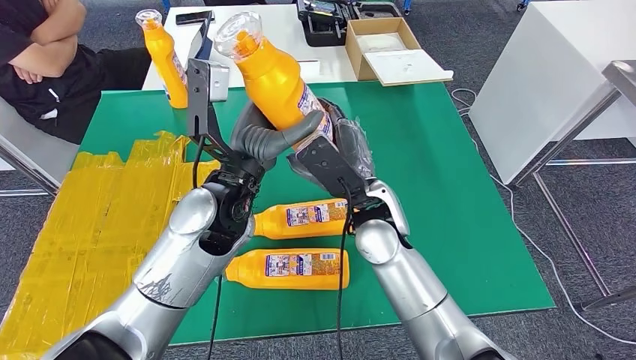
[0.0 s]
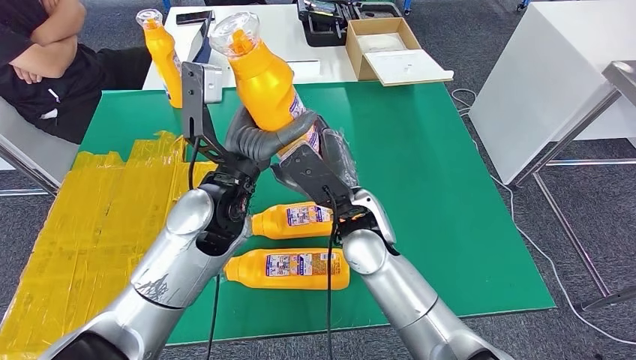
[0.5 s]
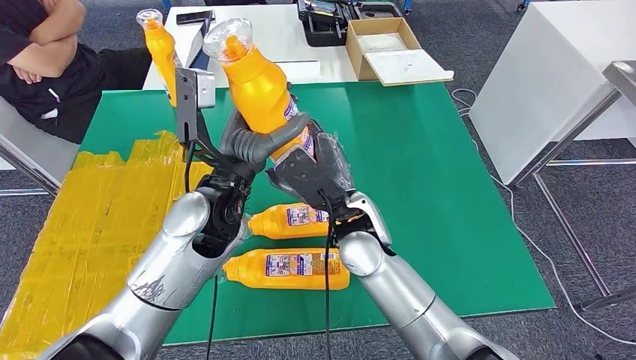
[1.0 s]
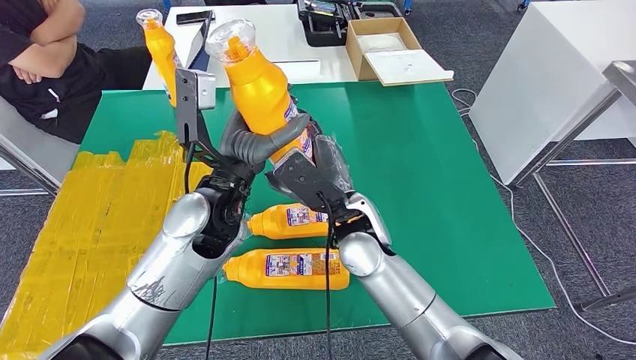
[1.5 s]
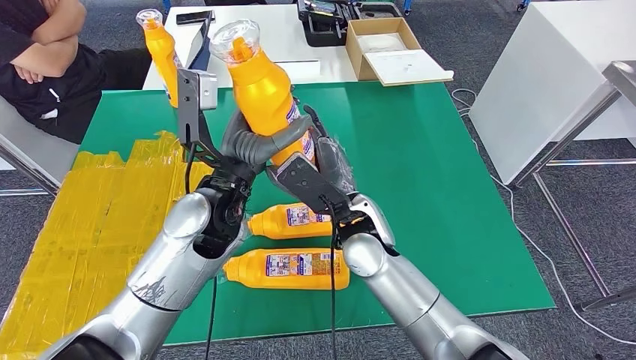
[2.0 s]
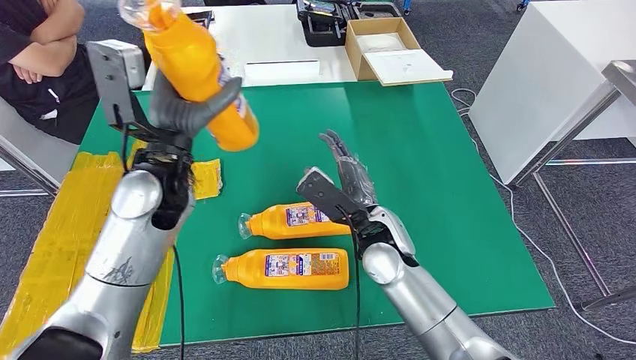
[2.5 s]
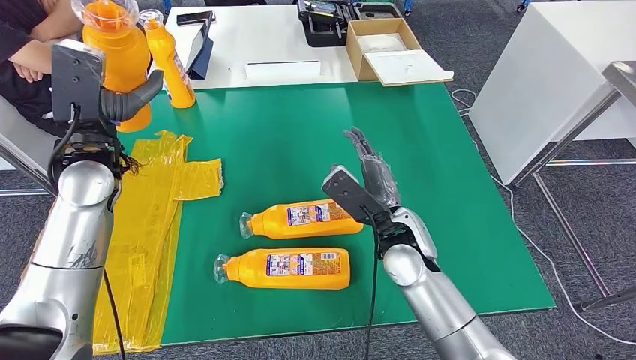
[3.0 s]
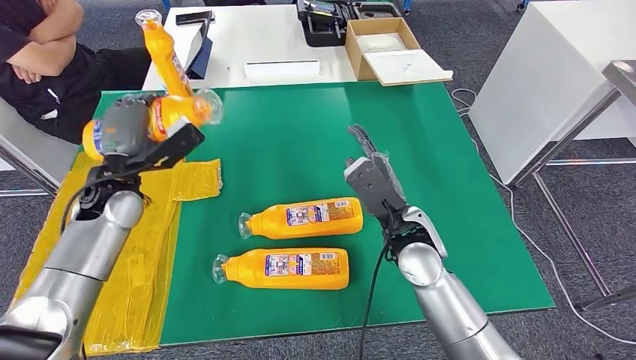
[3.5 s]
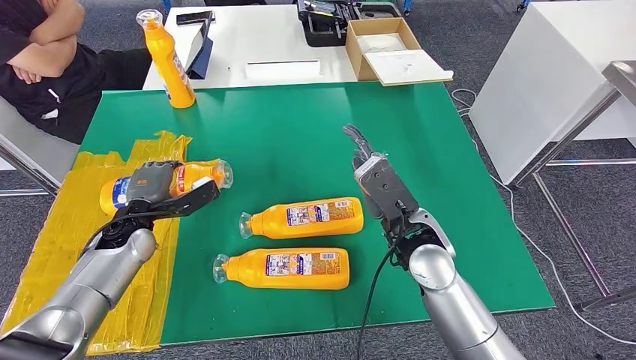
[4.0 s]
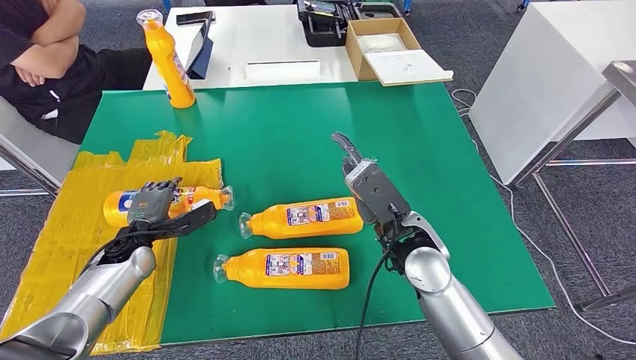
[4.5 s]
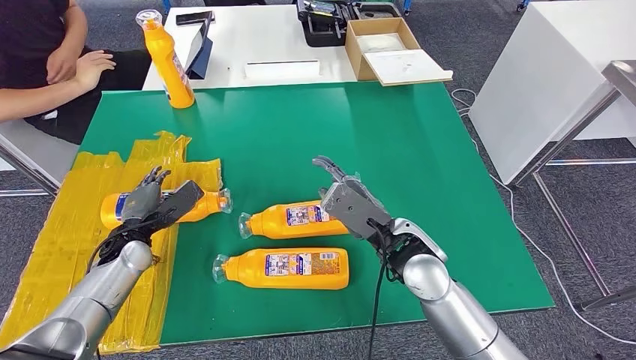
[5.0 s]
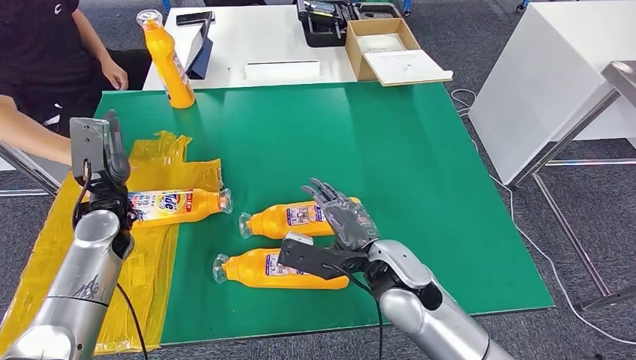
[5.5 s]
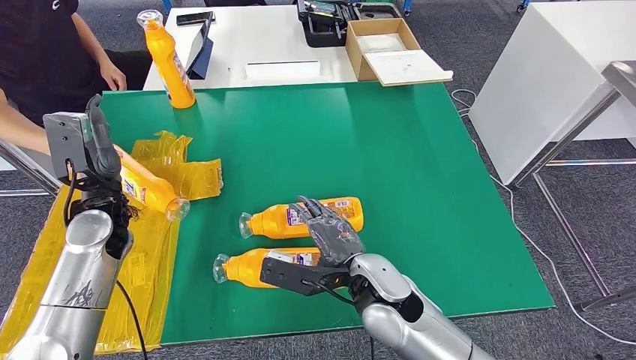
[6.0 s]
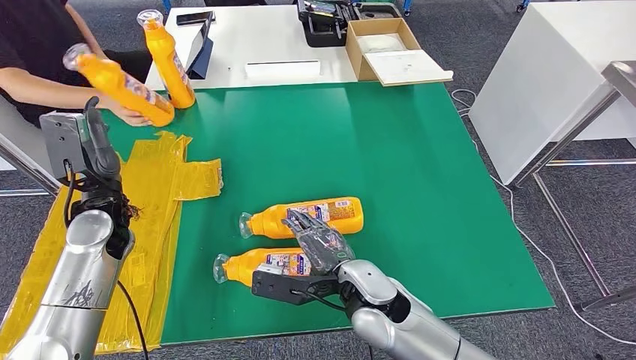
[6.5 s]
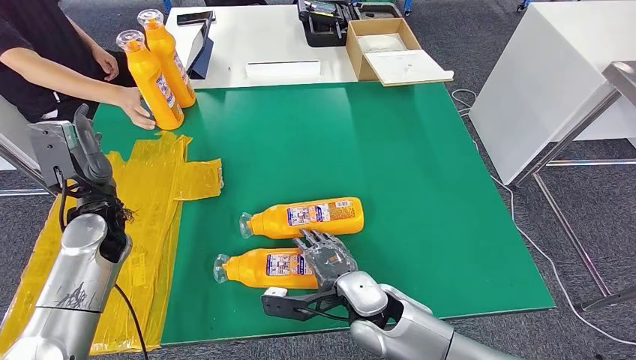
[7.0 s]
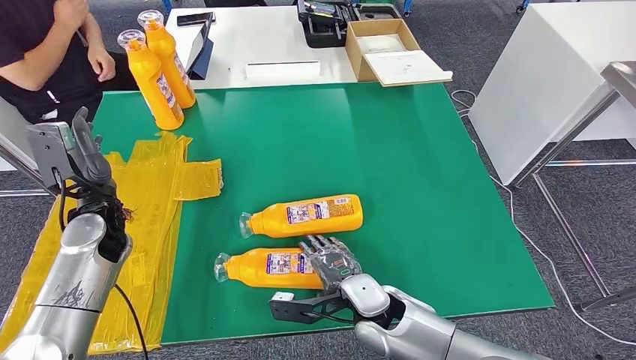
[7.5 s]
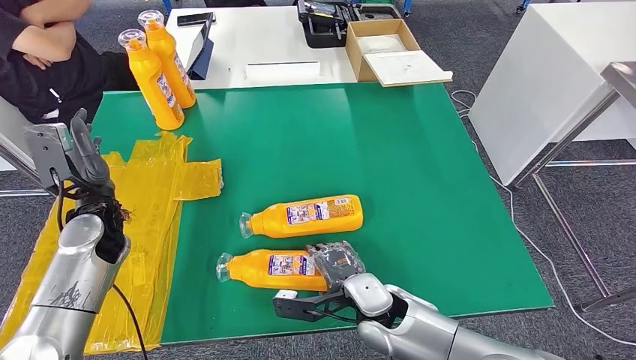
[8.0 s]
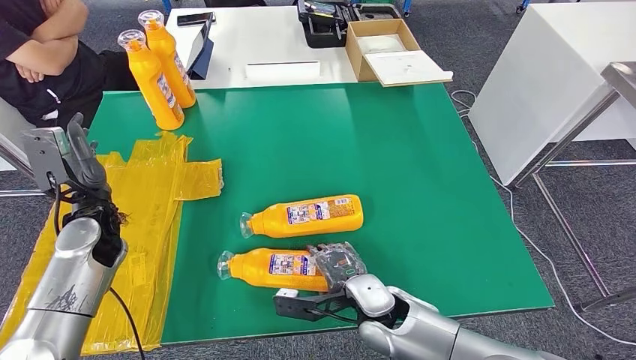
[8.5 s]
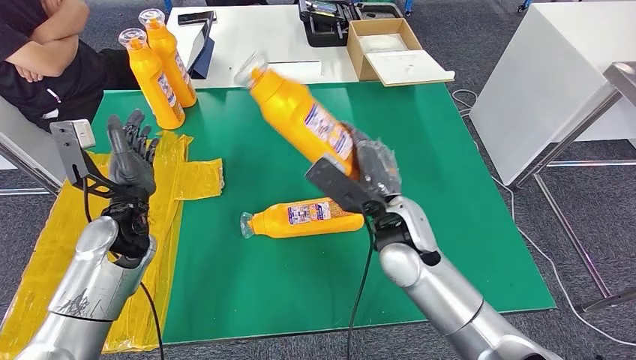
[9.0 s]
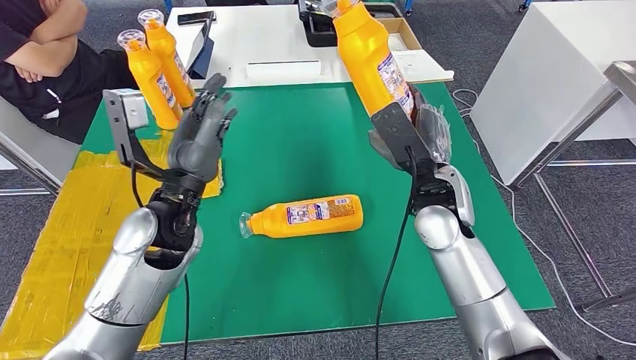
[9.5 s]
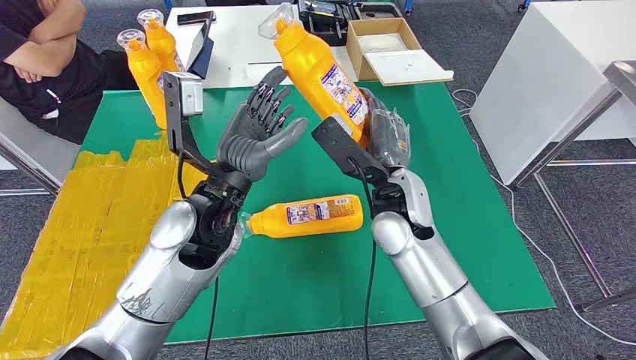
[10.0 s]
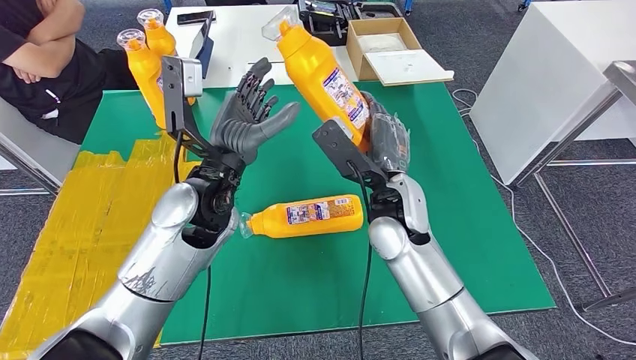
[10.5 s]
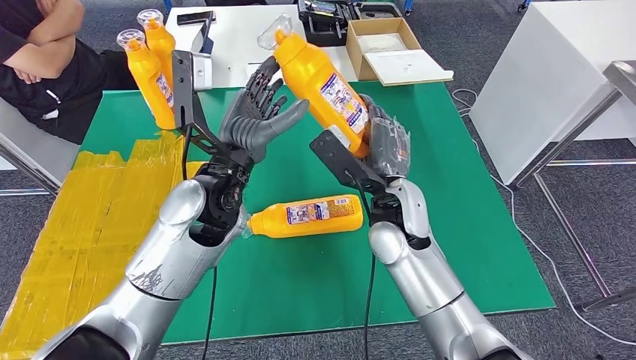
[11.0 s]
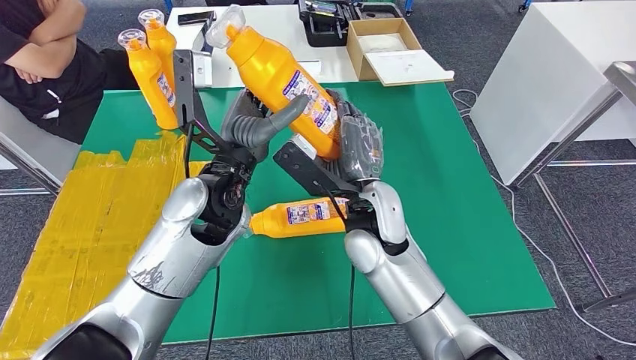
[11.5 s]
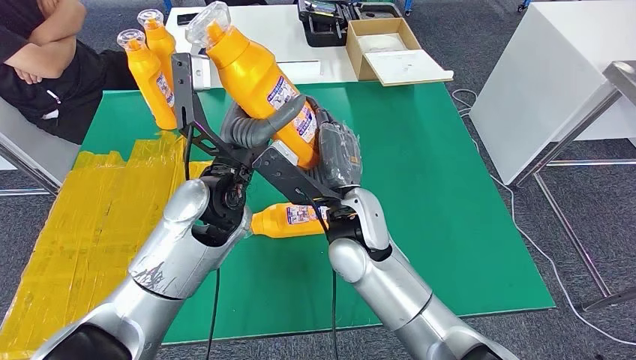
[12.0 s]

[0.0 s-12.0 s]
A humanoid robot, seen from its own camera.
Step, 0.0 to 4.5 s: Flip the bottle to face forward.
Step, 5.5 to 9.0 s: Pick up the bottle from the table.
0.0 to 2.0 s: The hands stay close to where they were, moving slightly.
6.0 to 8.0 s: The right hand travels downward by about 10 cm.

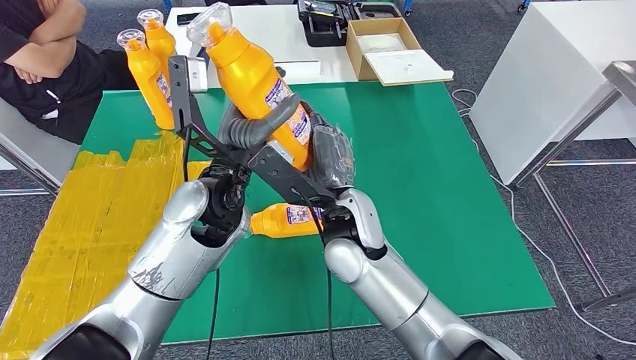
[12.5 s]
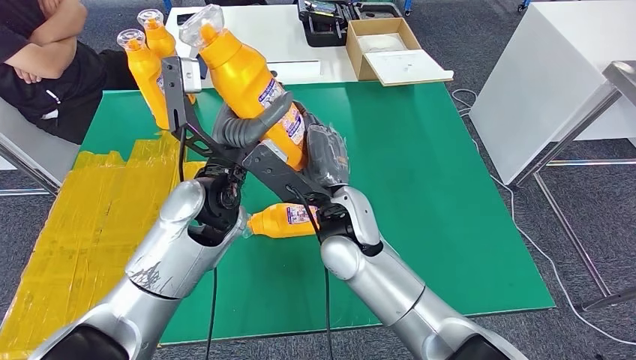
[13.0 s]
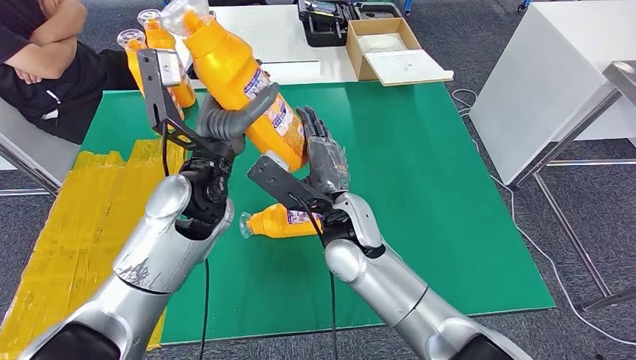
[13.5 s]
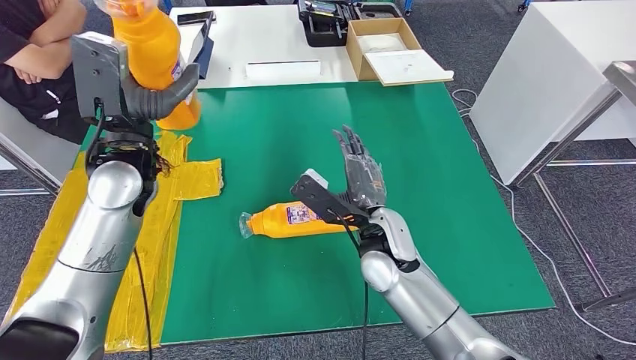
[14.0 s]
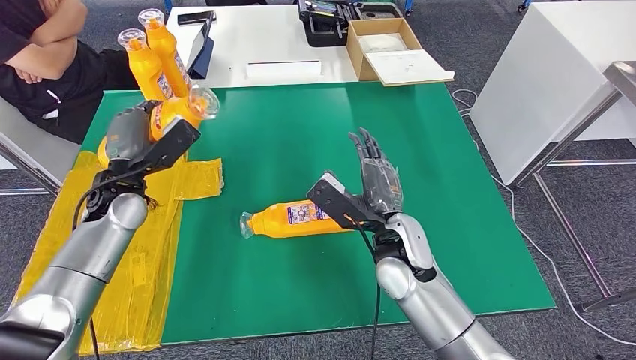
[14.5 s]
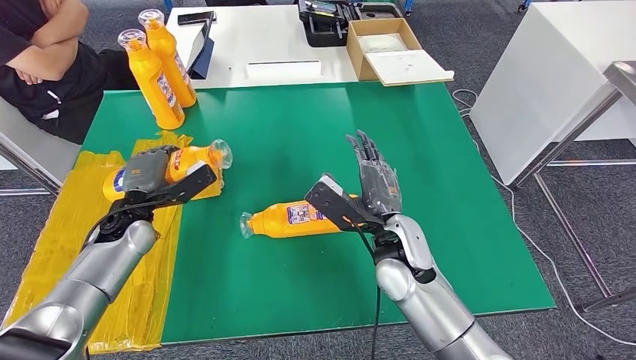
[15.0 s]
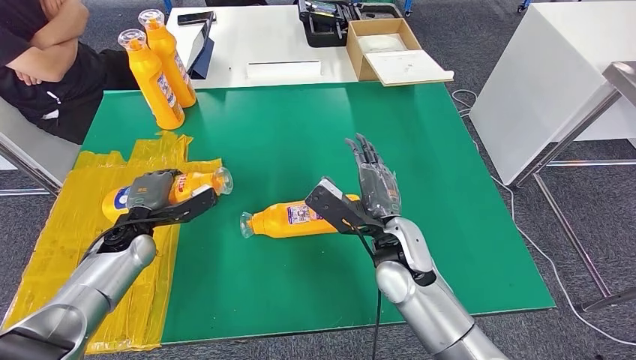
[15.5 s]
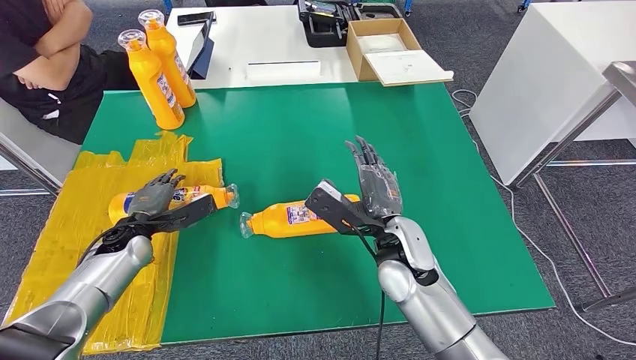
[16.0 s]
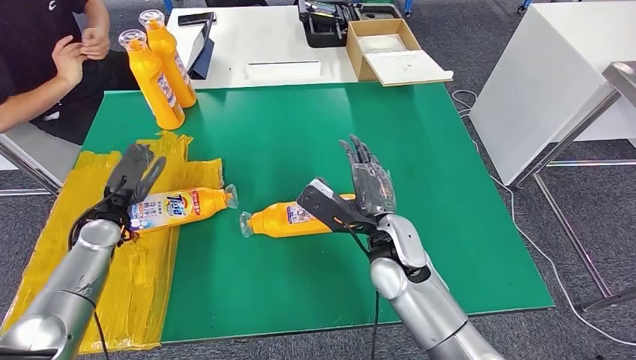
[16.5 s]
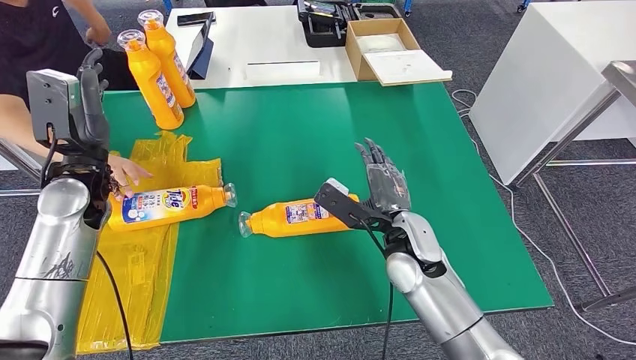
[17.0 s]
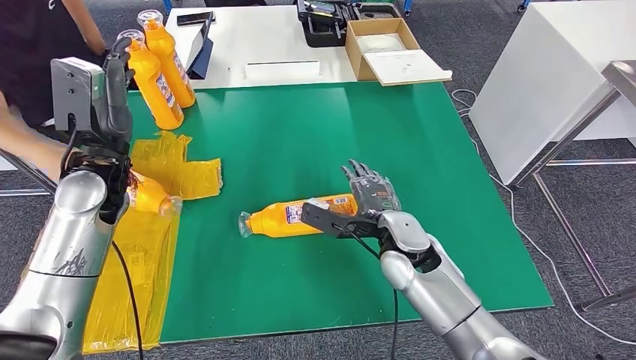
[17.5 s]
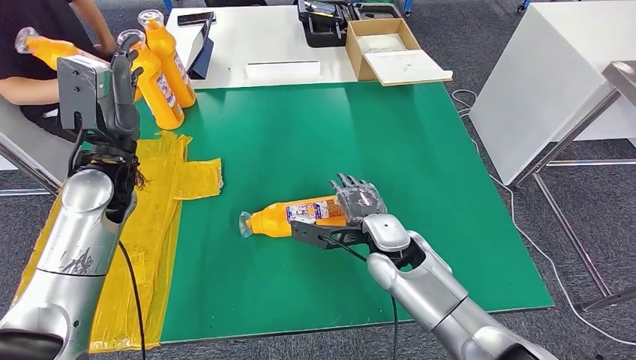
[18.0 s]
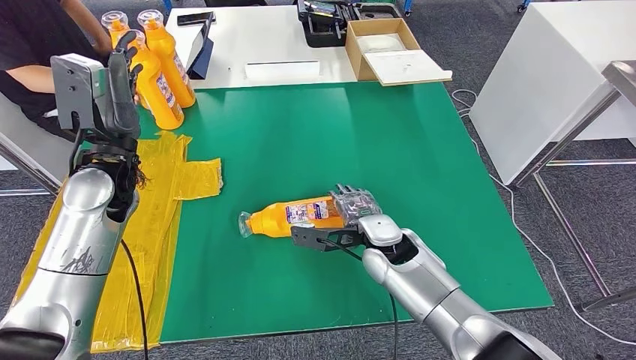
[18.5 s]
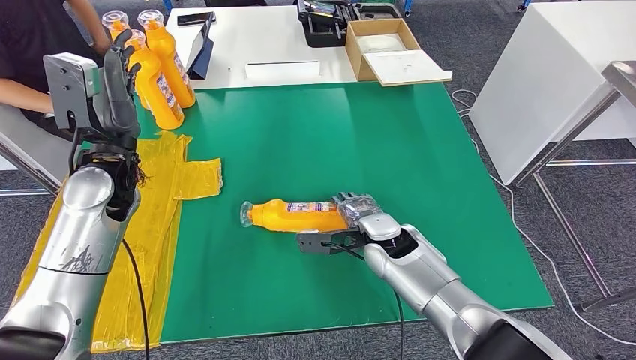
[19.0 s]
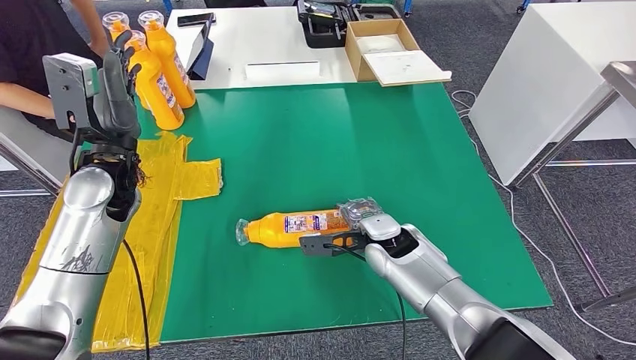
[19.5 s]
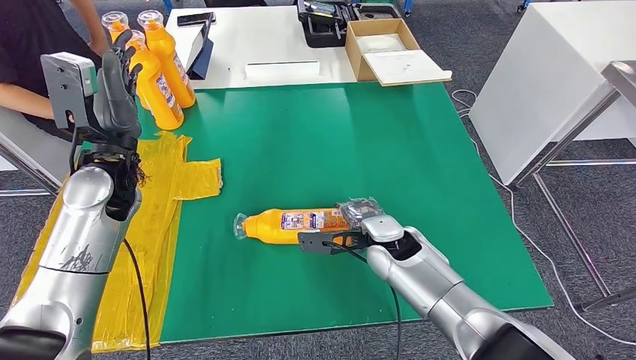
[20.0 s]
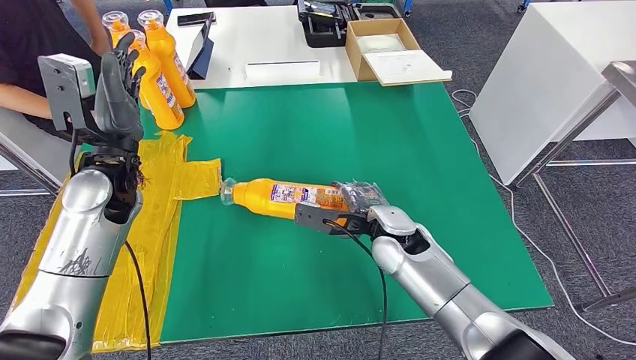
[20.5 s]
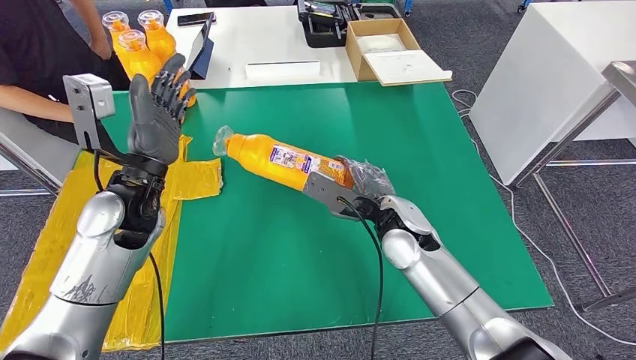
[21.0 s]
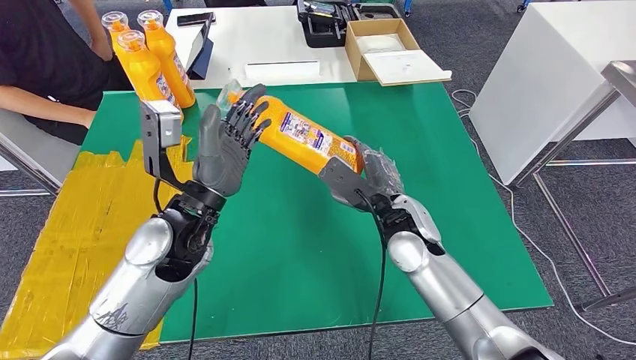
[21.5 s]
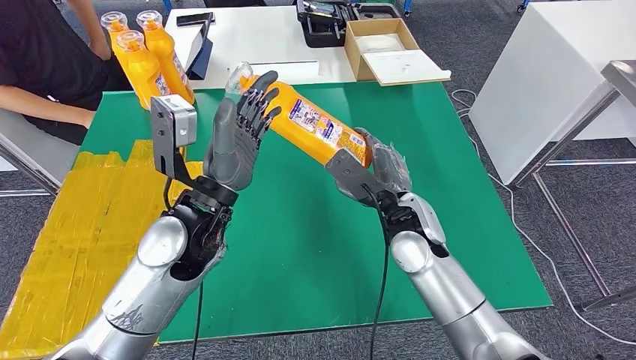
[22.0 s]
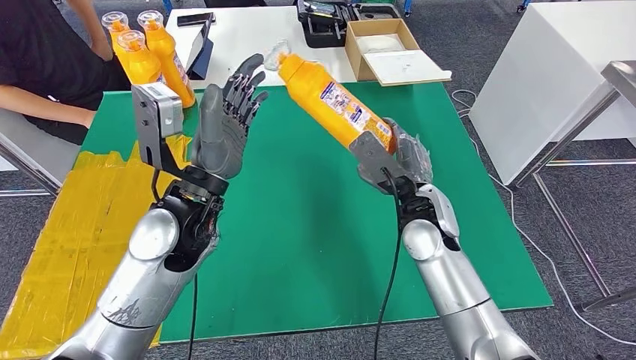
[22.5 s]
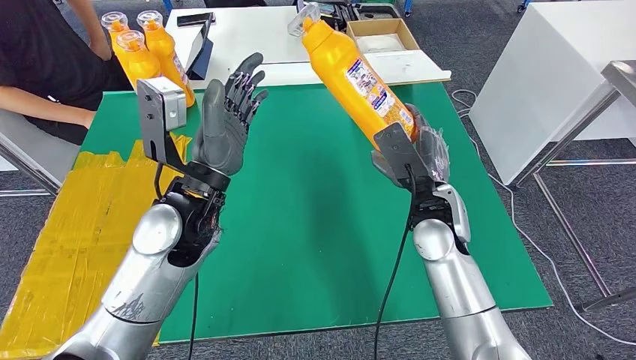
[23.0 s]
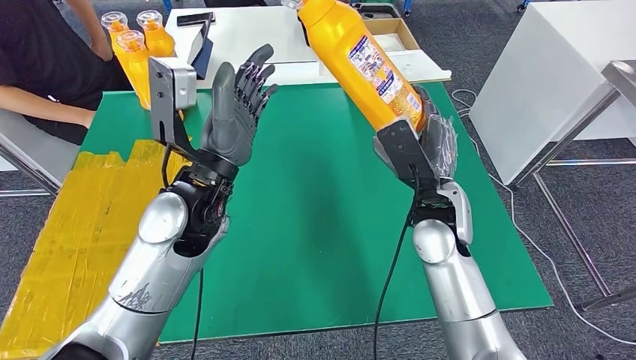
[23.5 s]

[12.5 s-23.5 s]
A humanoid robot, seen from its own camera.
Step, 12.5 to 18.0 s: Flip the bottle to face forward.
Step, 19.0 to 21.5 s: Pick up the bottle from the table.
14.5 to 16.0 s: The left hand shifts about 10 cm downward.
18.0 to 20.0 s: The hands stay close to where they were, moving slightly.
